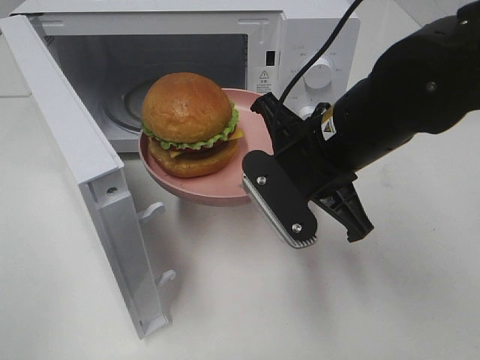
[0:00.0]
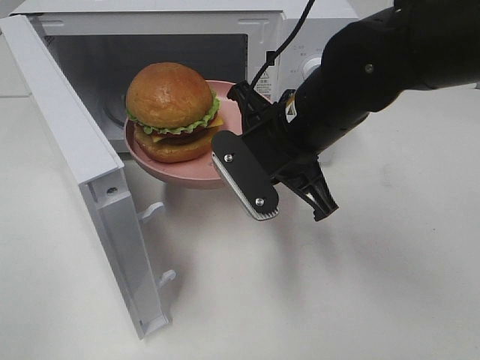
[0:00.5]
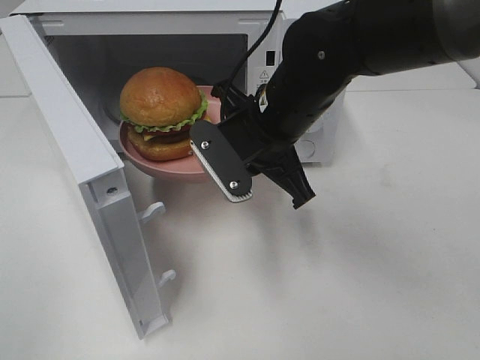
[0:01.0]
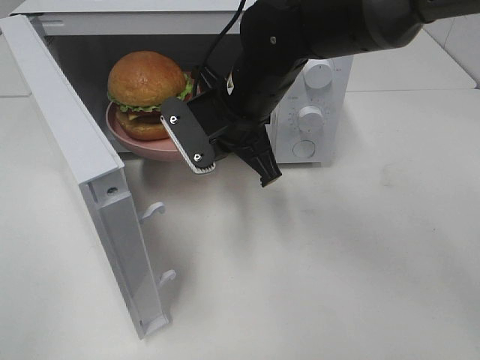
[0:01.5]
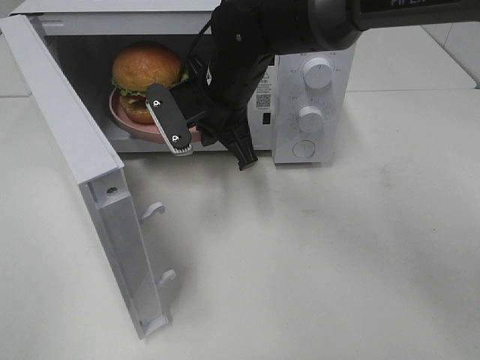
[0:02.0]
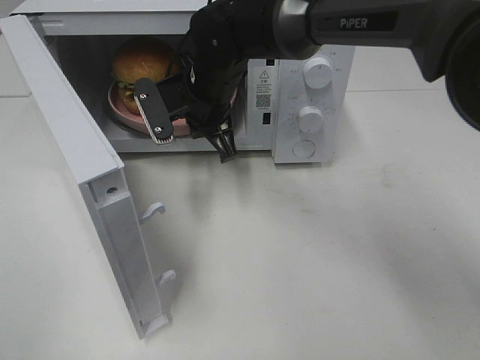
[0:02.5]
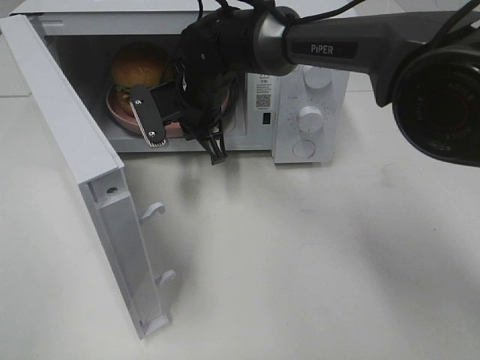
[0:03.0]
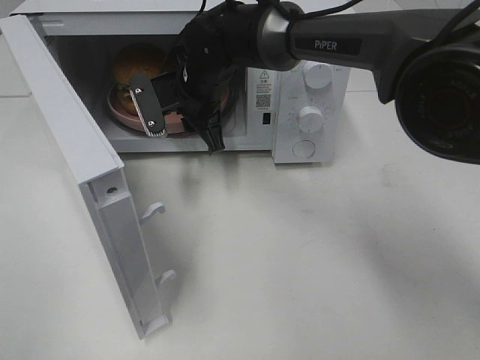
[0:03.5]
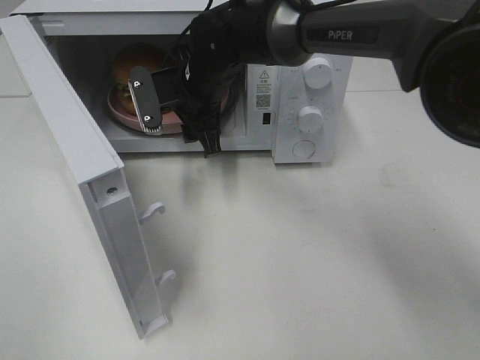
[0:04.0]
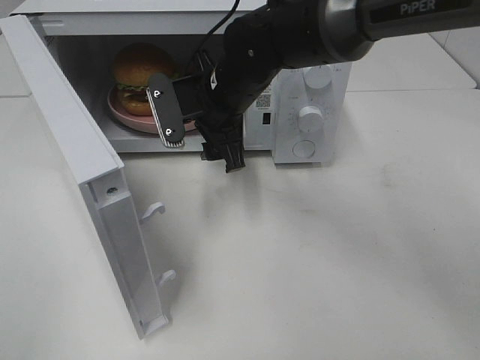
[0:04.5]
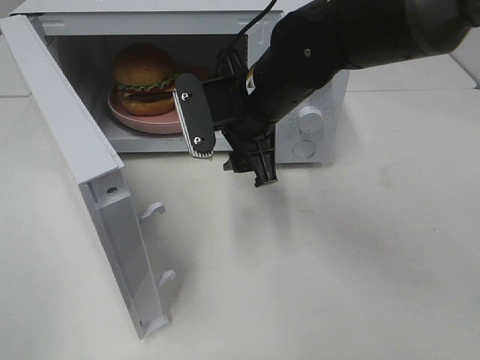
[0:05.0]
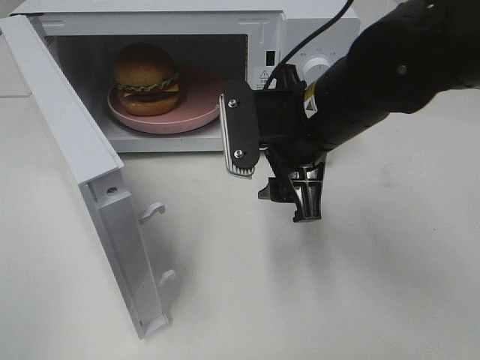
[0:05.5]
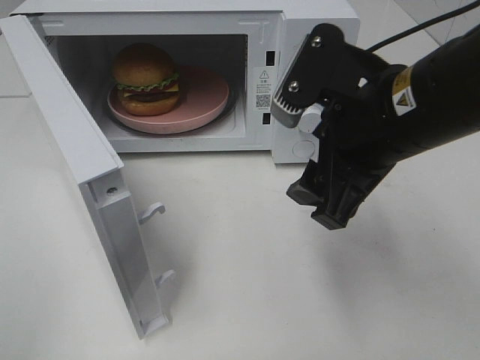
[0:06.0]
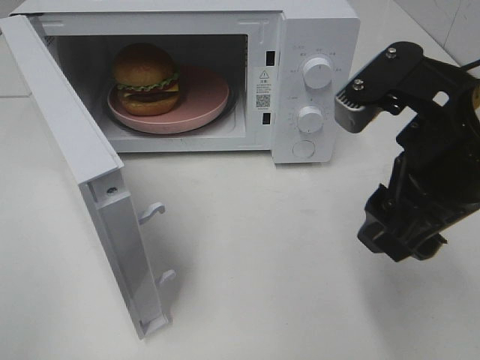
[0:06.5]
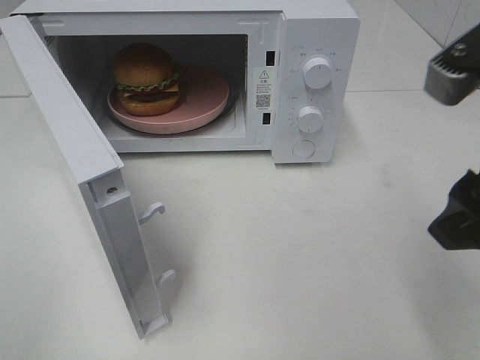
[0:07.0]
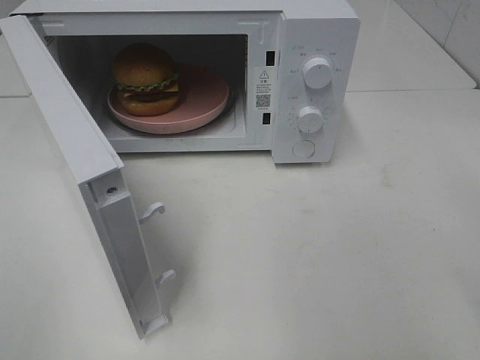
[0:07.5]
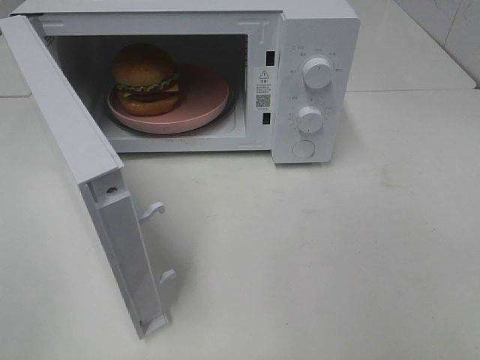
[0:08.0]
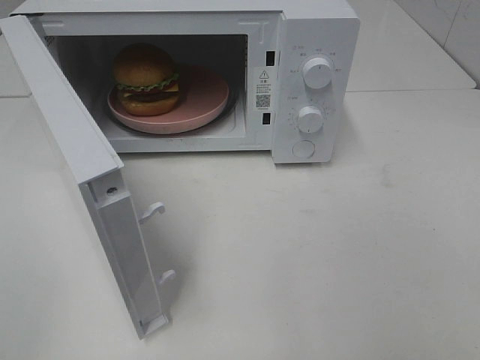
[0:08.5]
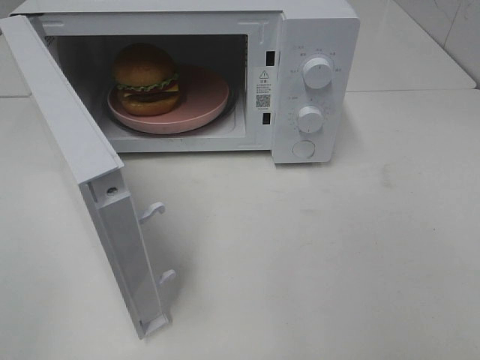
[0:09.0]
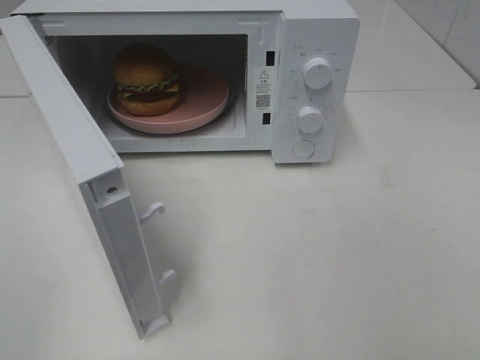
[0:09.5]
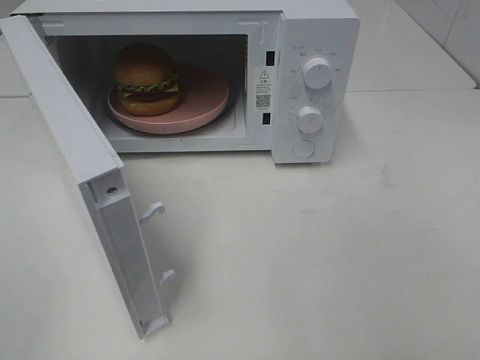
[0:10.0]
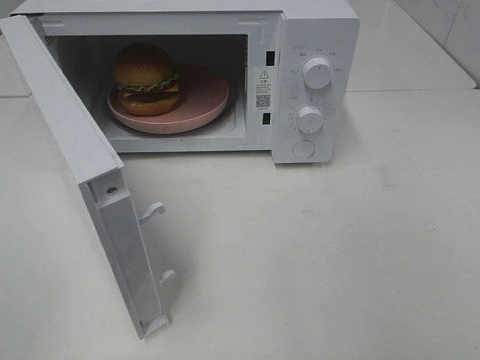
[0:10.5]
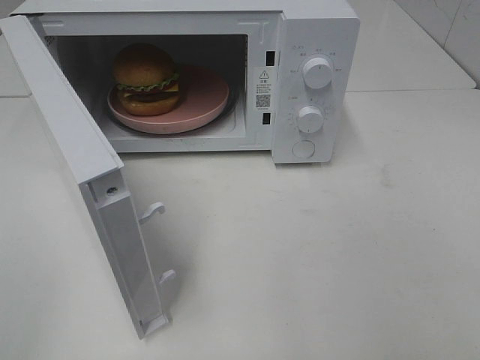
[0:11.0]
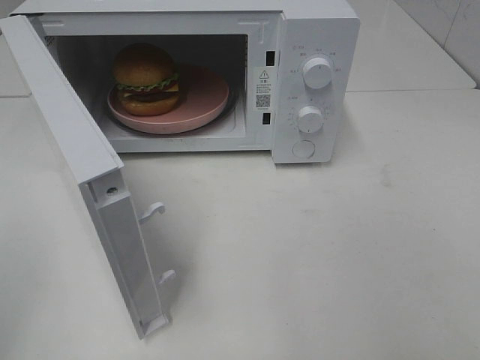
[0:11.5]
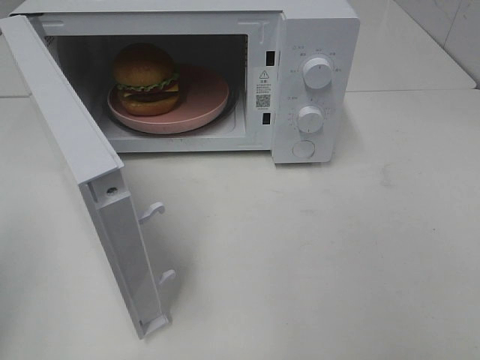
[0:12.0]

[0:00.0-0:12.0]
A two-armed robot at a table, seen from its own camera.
Task of the whole recording: Heat the burger.
Step, 0:00.0 to 0:03.5: Right hand: place the plate in the microwave.
0:00.0 to 0:02.0: The right gripper goes approximately 15 cm forward and to the left.
0:02.0 to 0:04.0: The right gripper ends up approximately 5 cm from where it was, and opens up.
0:04.0 to 0:06.0: The right gripper moves backward, to the right and upward, approximately 25 cm.
0:06.0 to 0:08.0: The right gripper moves to the right and backward, roughly 25 cm.

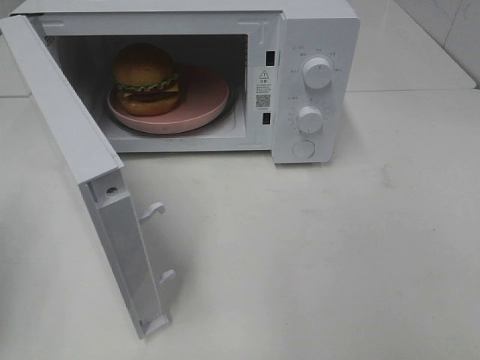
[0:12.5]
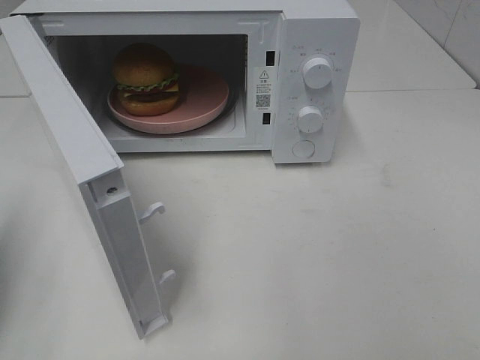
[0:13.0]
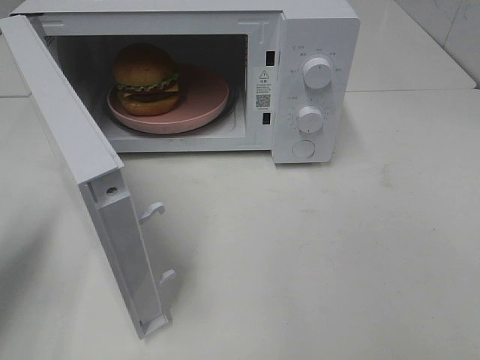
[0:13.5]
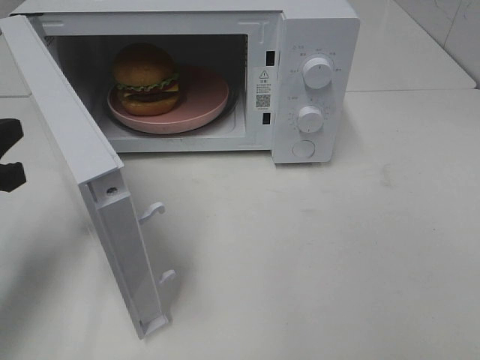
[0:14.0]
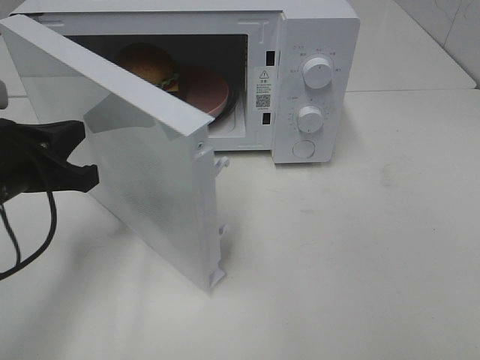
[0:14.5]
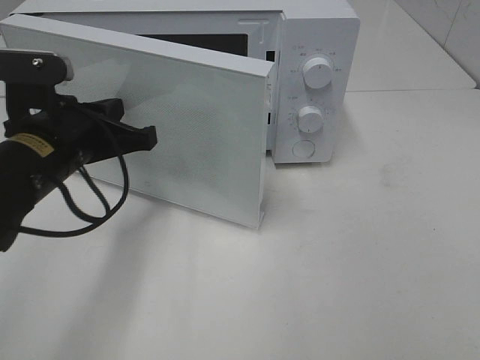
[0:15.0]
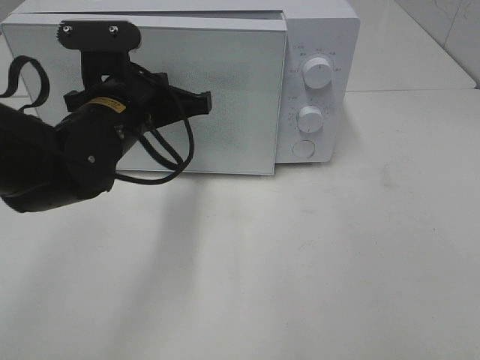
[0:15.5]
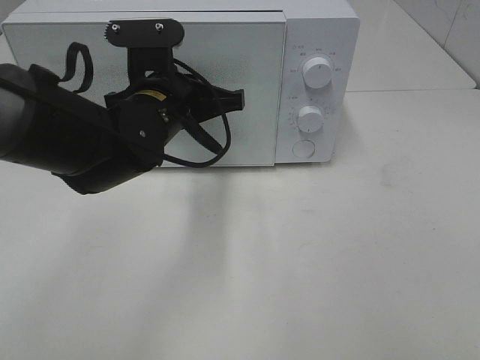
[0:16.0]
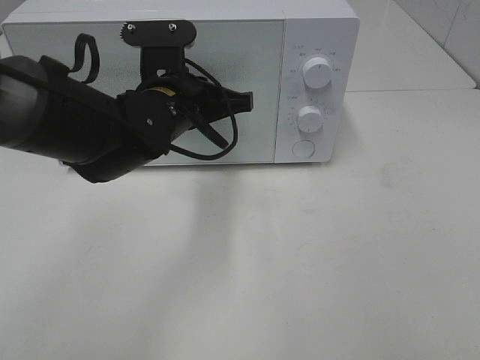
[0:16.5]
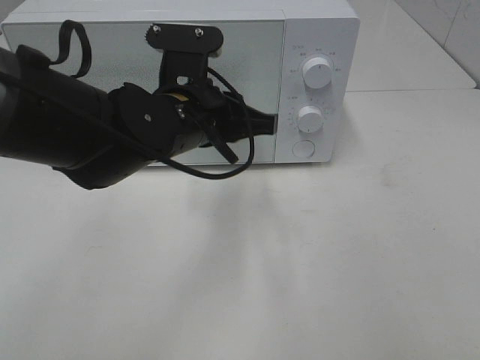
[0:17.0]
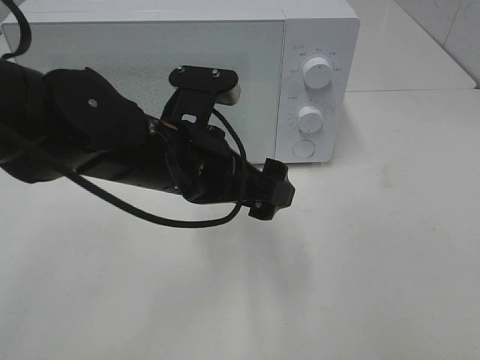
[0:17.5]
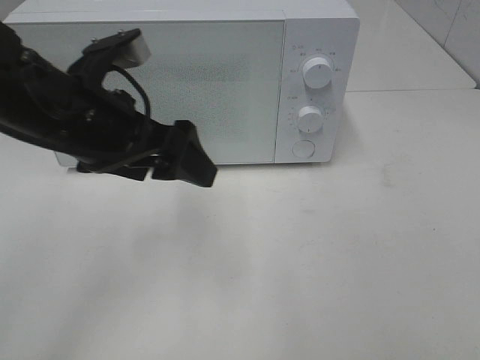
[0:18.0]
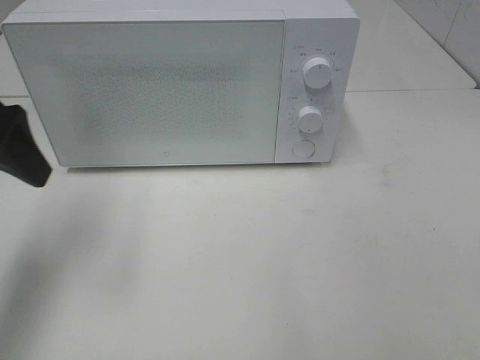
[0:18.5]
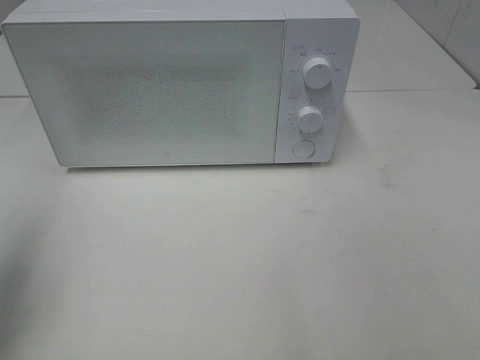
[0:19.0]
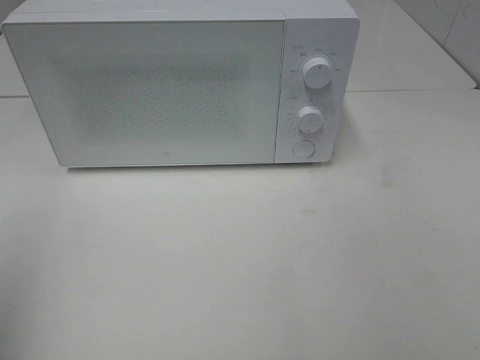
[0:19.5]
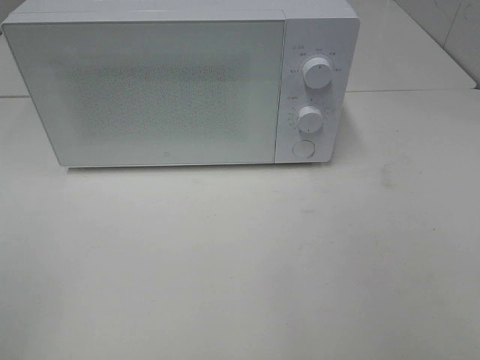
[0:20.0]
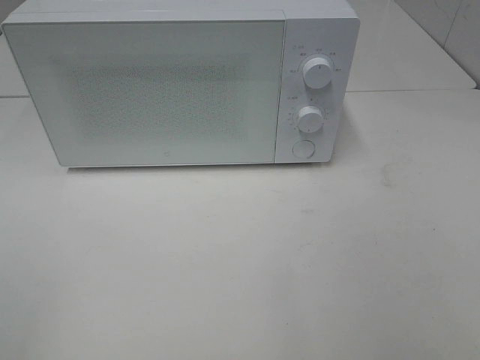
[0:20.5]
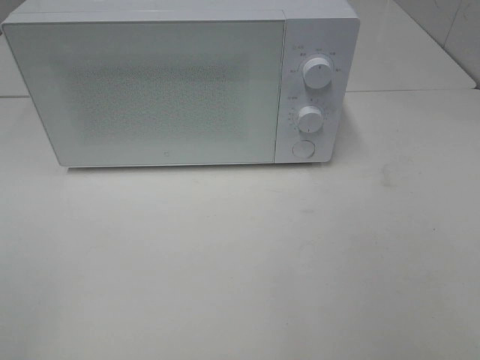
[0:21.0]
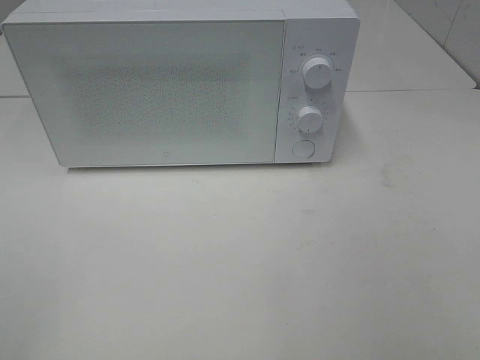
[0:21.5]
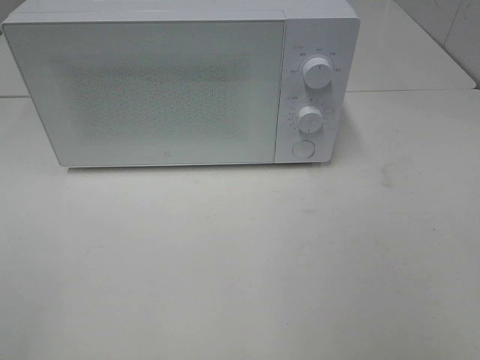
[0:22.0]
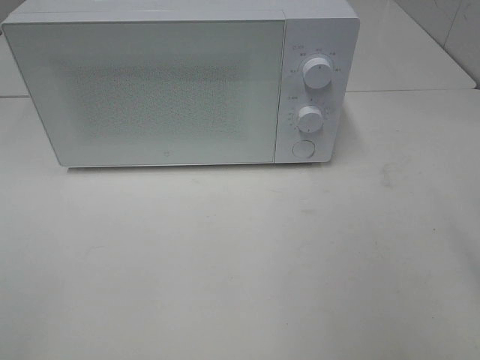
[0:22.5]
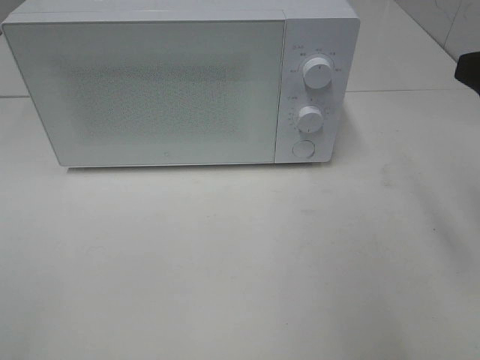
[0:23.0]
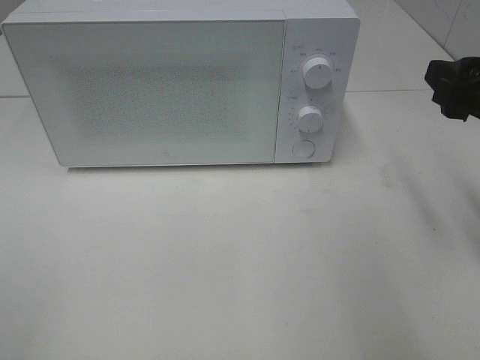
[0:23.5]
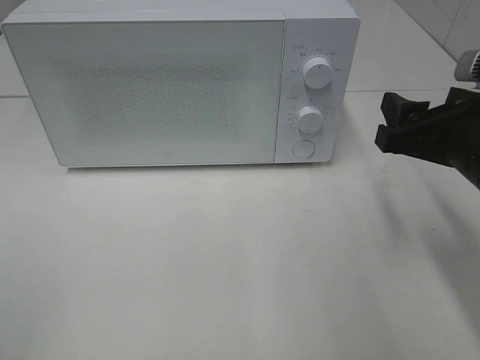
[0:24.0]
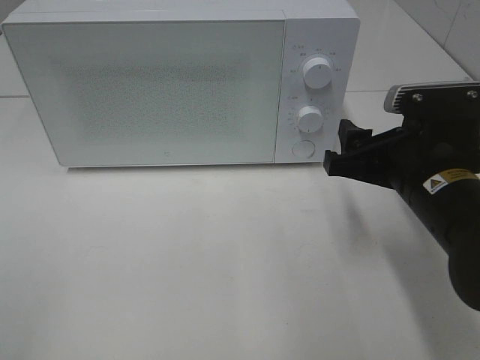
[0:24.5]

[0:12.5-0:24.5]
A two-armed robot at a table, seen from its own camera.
Task of the whole recording: Heat the burger.
Step, 0:12.5 to 0:17.0: Left hand: close the microwave door.
0:12.5 to 0:14.5: The left gripper shifts some 20 cm to the right, forward and downward.
0:14.5 to 0:16.5: The left gripper shifts roughly 20 cm to the right and forward.
0:16.5 to 0:18.5: The left gripper goes about 25 cm to the left, upward and backward, and opens up.
0:18.5 to 0:20.5: The left gripper is displaced backward by roughly 25 cm.
0:22.5 to 0:24.5: The right gripper shifts some 20 cm downward, forward and to the left.

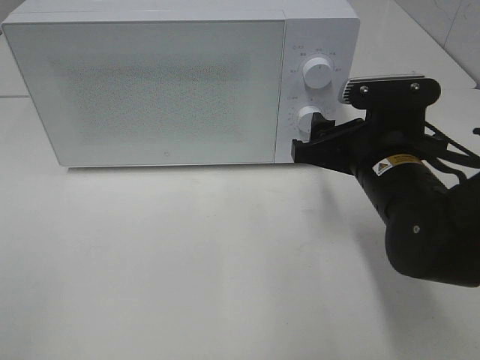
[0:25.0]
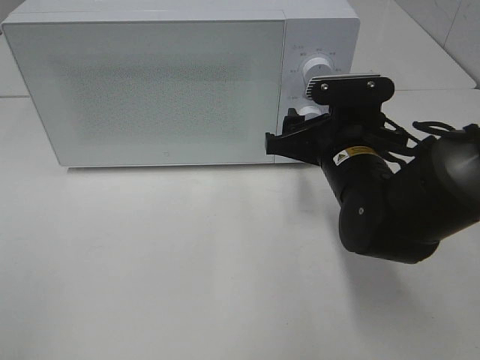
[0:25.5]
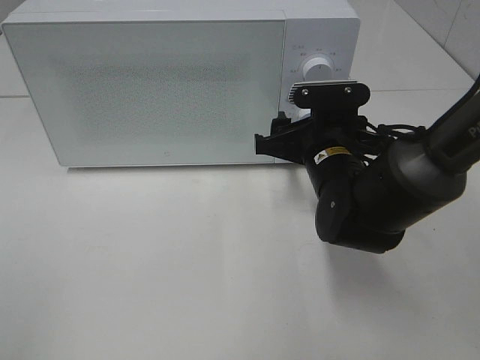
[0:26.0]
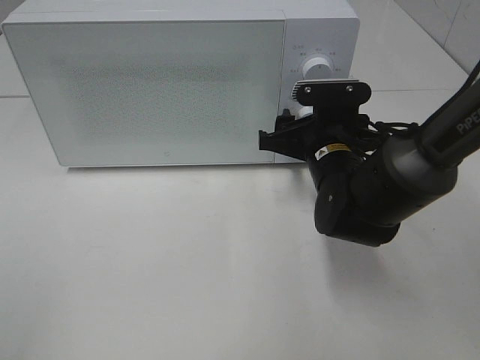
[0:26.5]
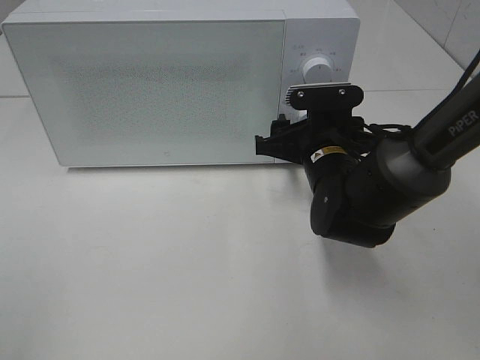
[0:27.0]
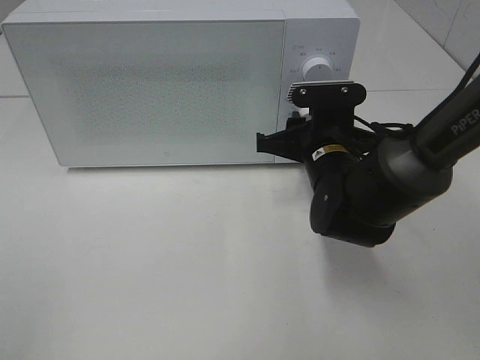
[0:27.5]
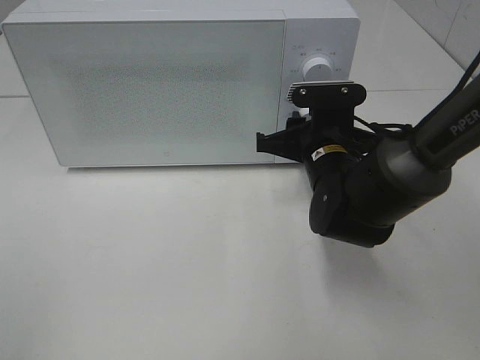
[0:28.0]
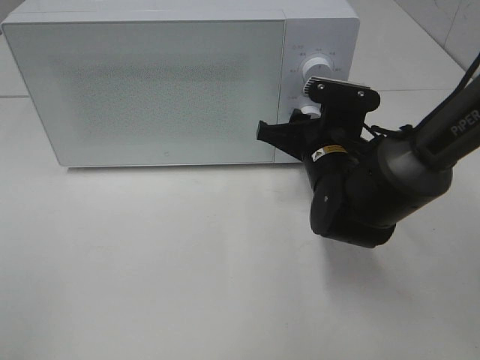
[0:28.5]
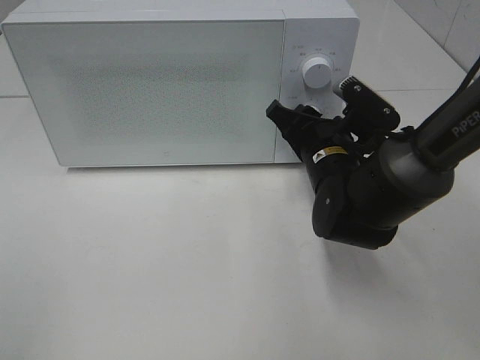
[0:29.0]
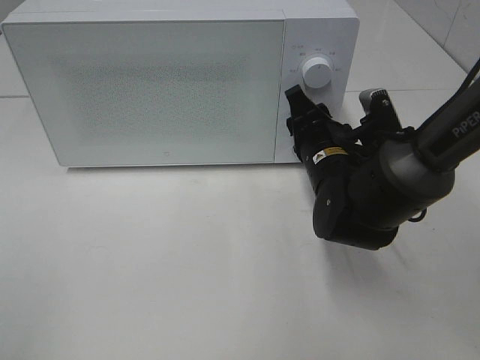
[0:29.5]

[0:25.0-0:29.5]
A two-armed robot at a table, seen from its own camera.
Task of the whole recording: Heat the burger.
0:25.0 to 0:27.0: The right gripper shifts about 5 cm forward.
0:27.0 to 0:29.5: The right gripper closes.
